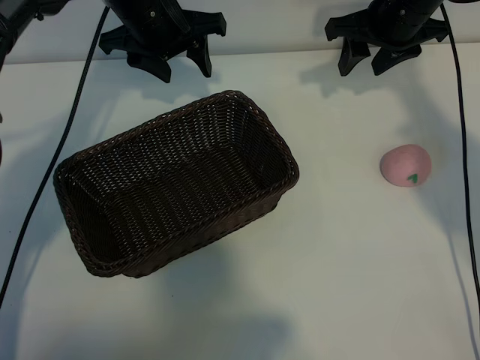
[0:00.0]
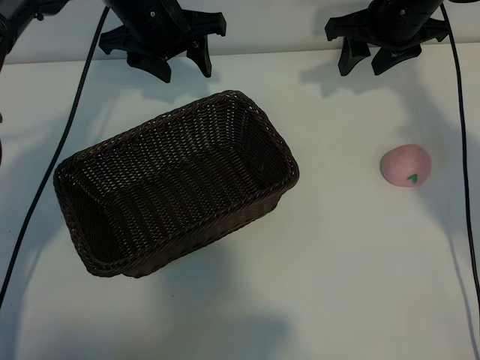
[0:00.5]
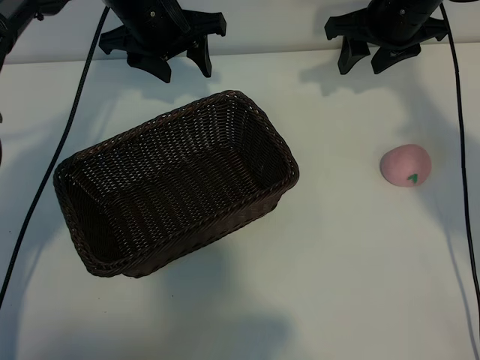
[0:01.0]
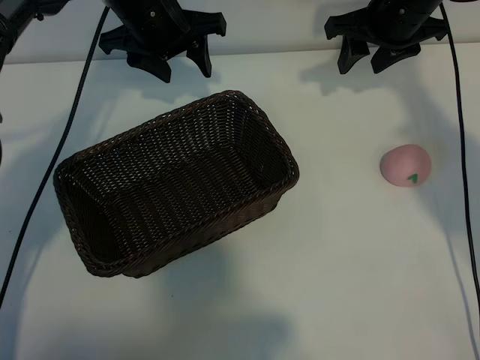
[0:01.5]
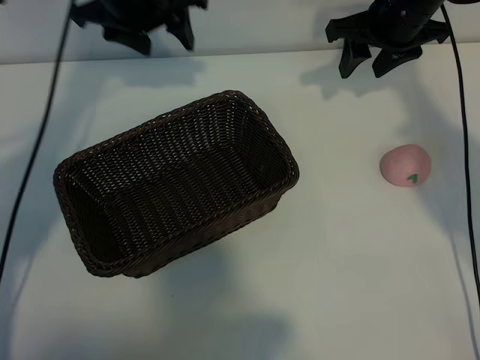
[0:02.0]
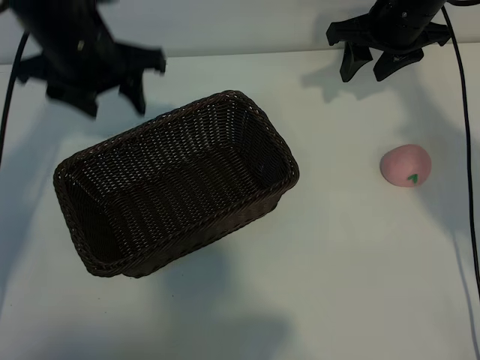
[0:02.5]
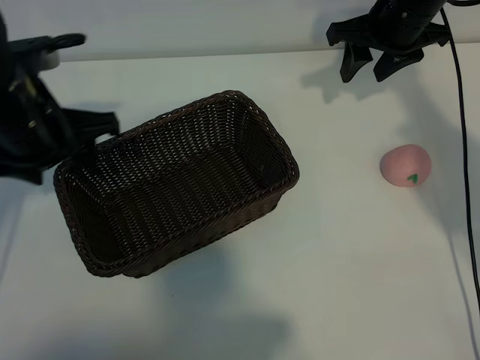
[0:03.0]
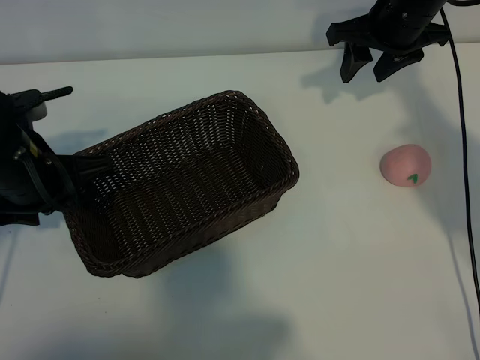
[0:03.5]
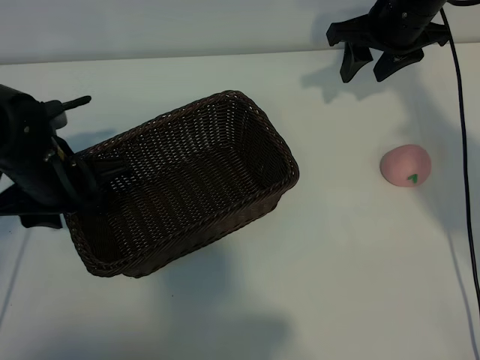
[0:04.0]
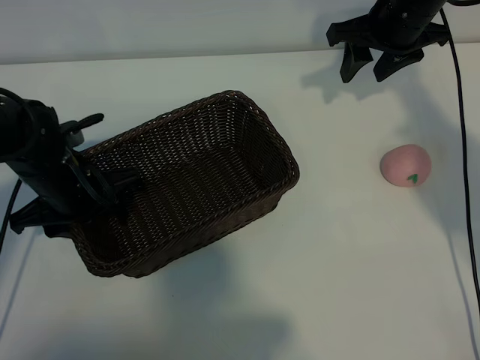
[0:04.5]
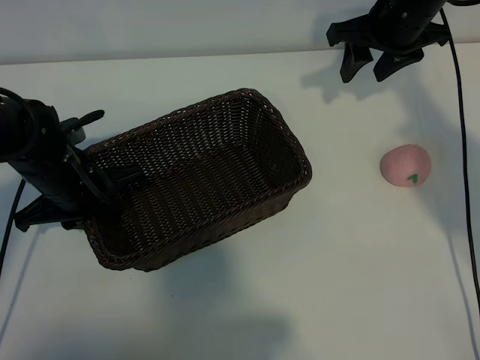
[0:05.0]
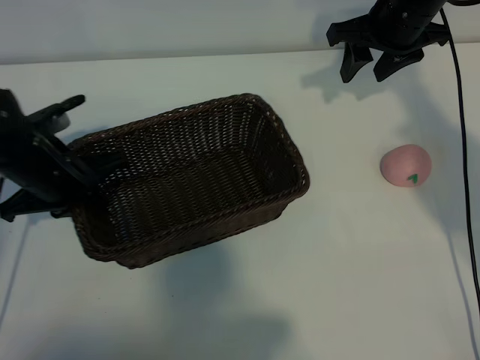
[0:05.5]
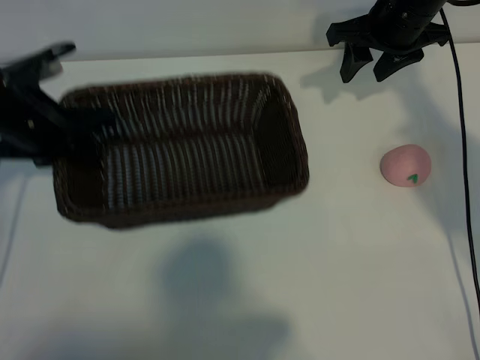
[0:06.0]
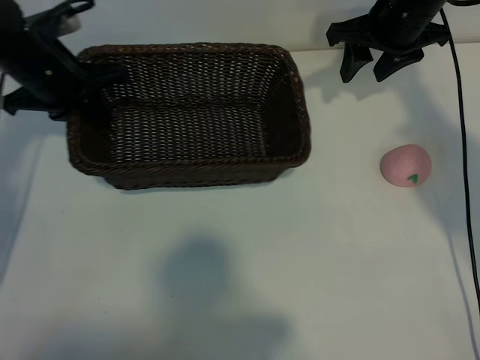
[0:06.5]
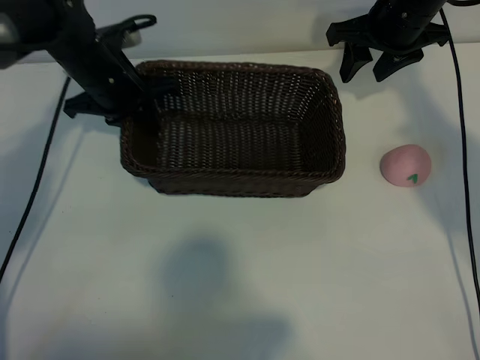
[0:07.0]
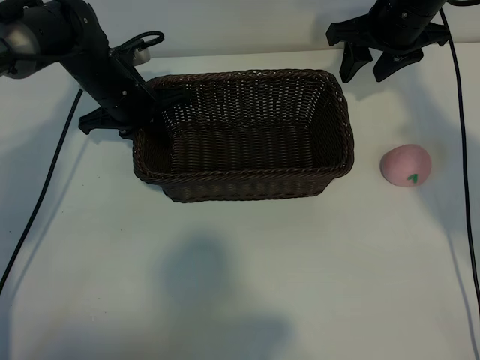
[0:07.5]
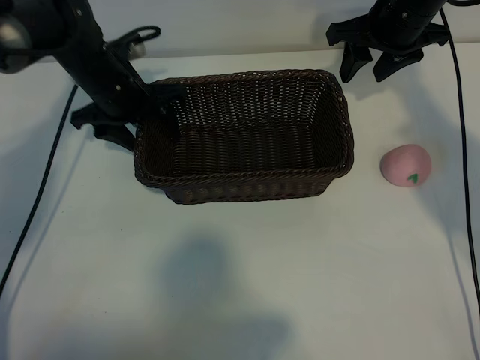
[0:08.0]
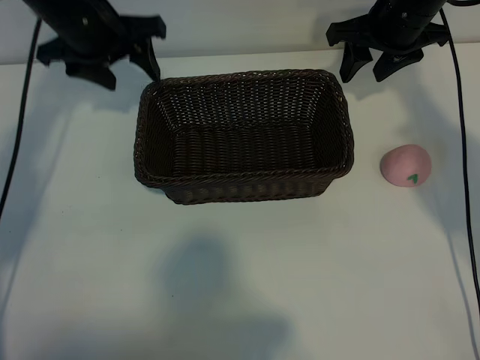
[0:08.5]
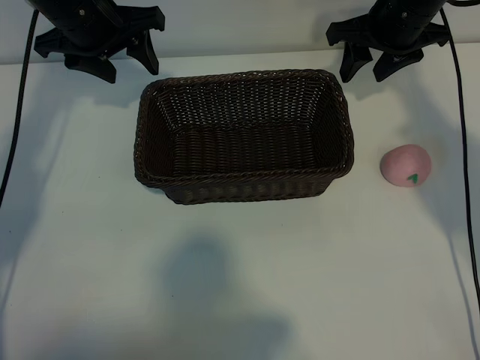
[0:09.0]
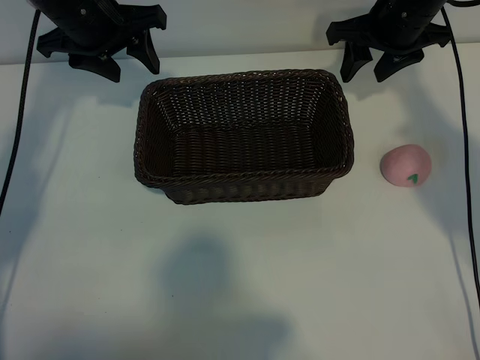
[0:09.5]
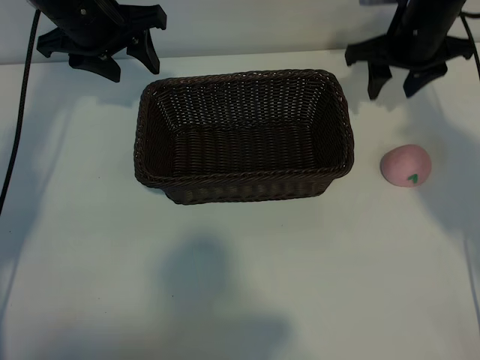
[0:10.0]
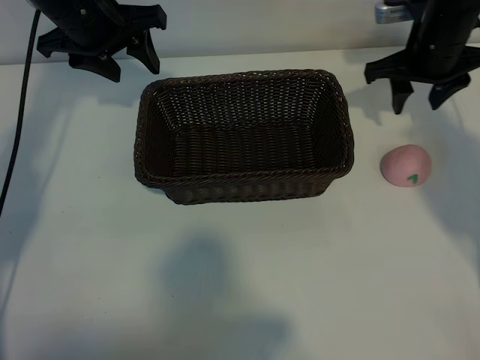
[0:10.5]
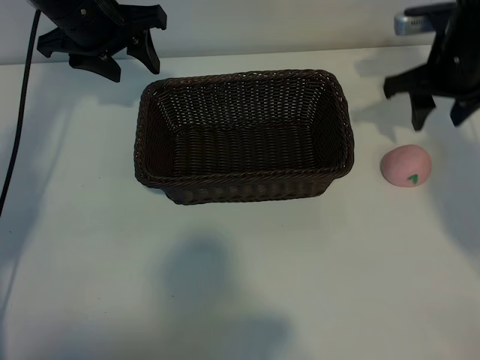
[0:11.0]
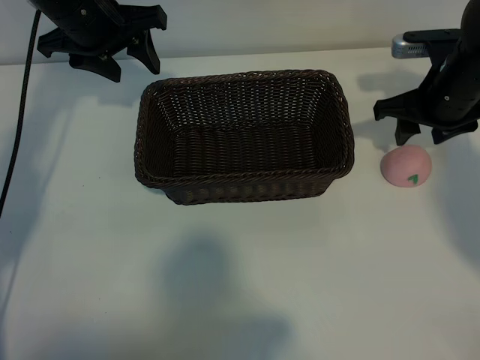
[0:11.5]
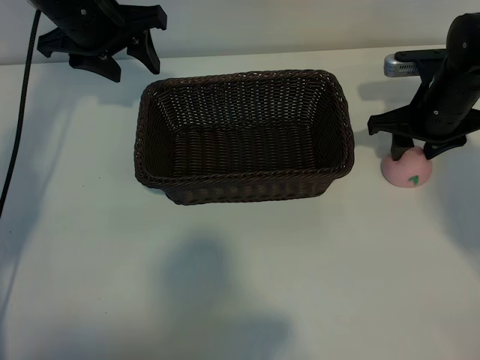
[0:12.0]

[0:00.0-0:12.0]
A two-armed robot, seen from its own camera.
Task of the whole recording: pick up the peach and put it into the basket.
Step, 0:02.0 to 0:04.5: Grasp the basket with left gripper.
Step, 0:05.0 to 0:07.5: Place the basket in the center of view with left gripper.

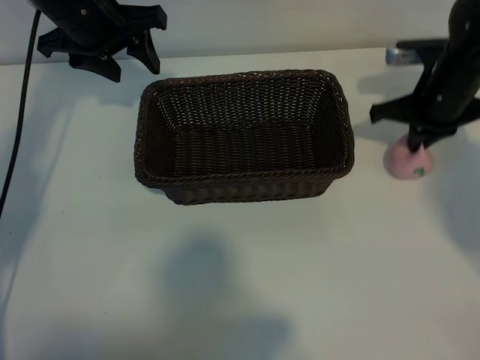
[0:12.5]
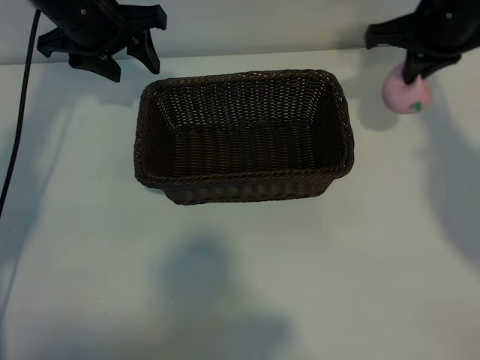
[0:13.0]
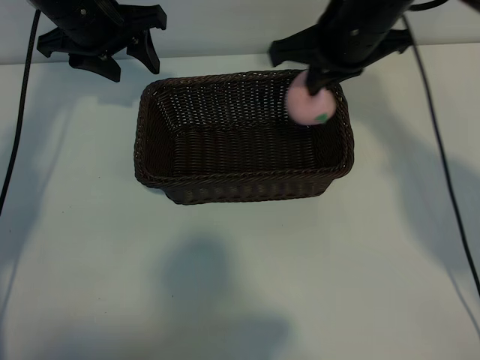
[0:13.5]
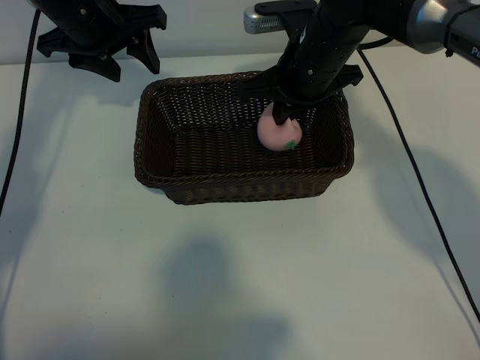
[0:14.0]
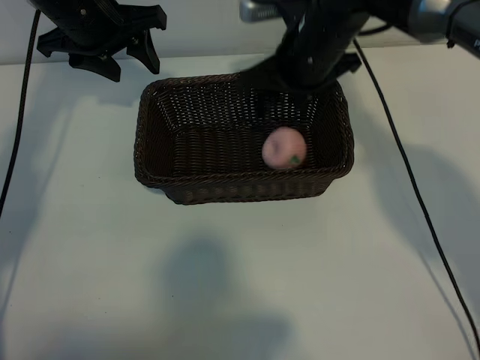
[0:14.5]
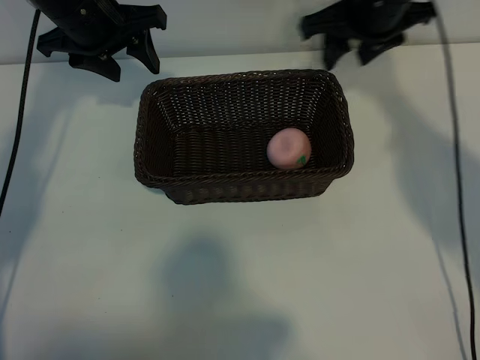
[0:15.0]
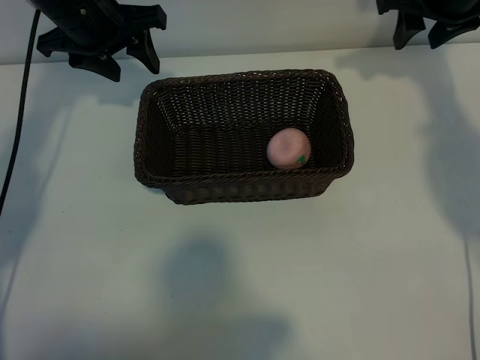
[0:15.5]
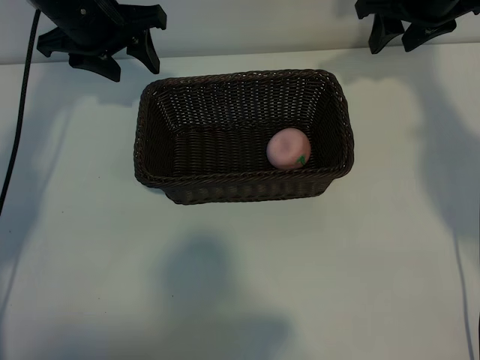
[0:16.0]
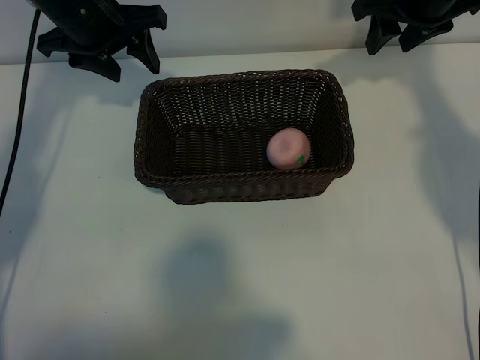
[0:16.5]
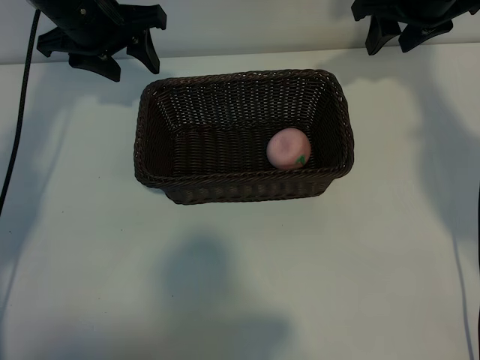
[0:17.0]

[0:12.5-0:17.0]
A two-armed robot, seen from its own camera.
Task of the whole recording: pick up the peach and put it into the basket.
Step, 0:13.0 to 0:14.5: Place the peach in the basket with right gripper.
